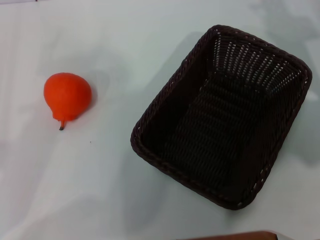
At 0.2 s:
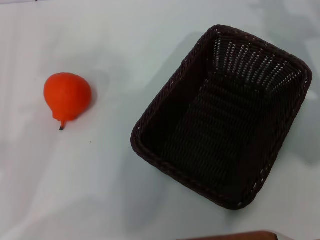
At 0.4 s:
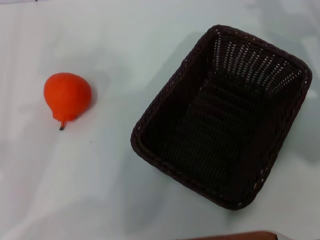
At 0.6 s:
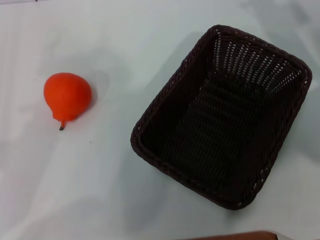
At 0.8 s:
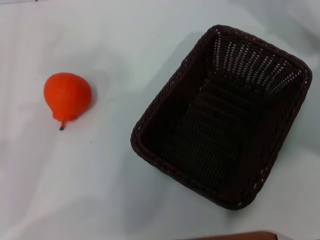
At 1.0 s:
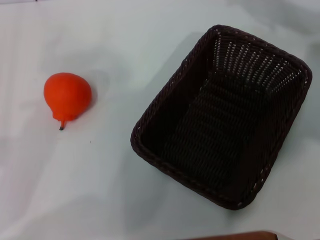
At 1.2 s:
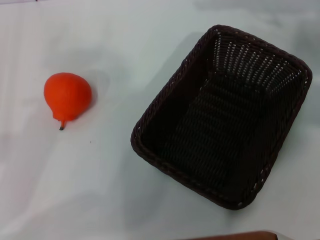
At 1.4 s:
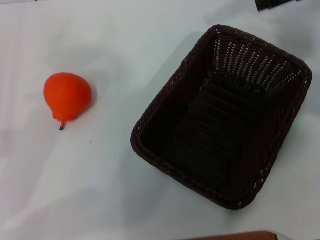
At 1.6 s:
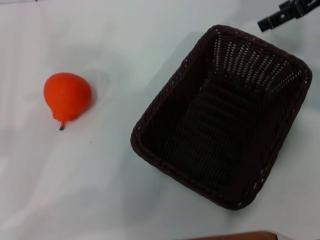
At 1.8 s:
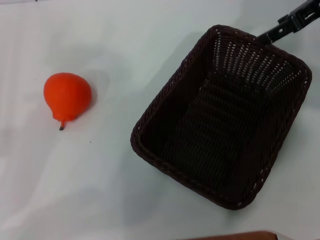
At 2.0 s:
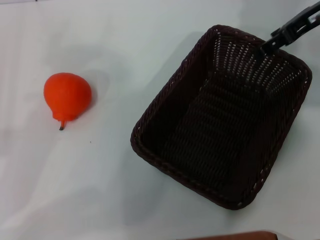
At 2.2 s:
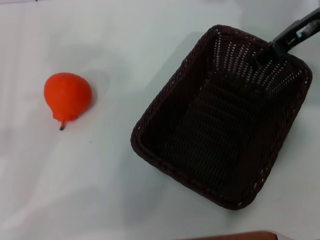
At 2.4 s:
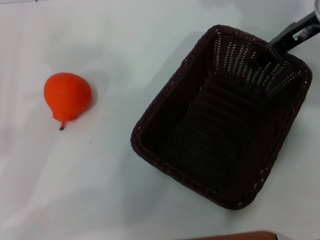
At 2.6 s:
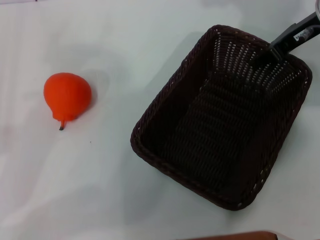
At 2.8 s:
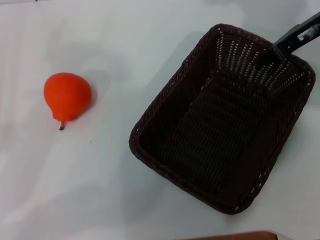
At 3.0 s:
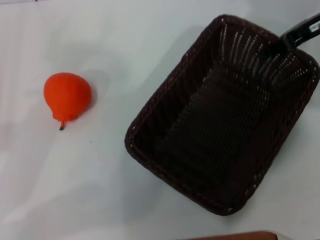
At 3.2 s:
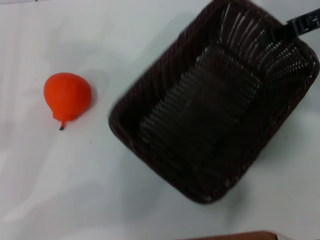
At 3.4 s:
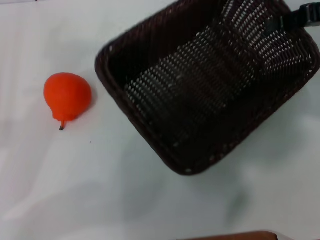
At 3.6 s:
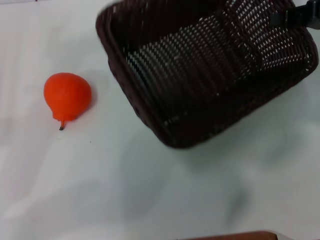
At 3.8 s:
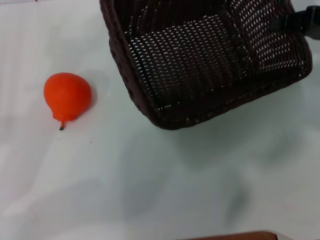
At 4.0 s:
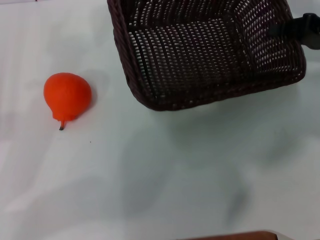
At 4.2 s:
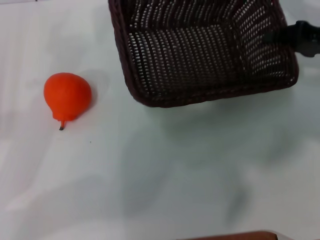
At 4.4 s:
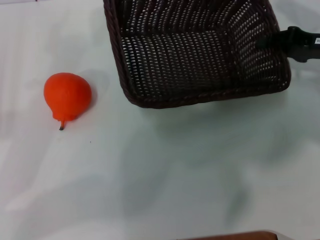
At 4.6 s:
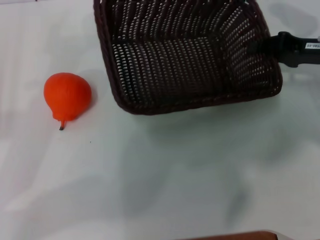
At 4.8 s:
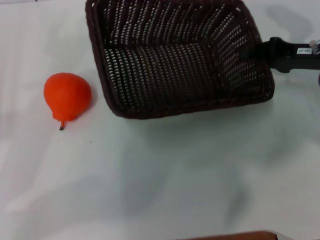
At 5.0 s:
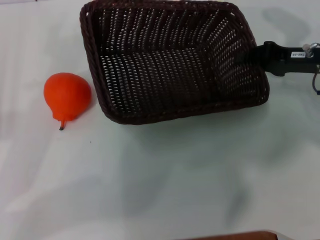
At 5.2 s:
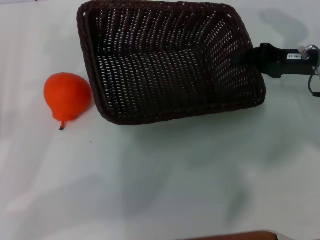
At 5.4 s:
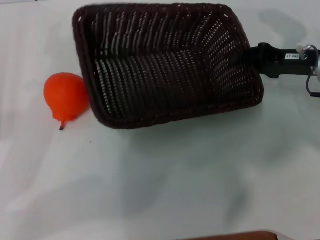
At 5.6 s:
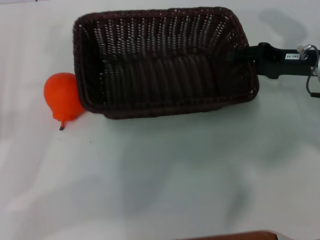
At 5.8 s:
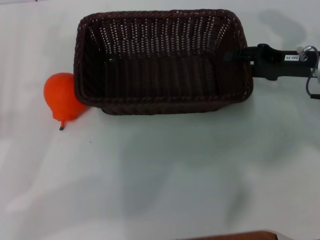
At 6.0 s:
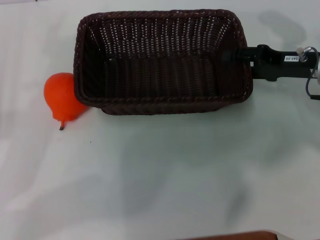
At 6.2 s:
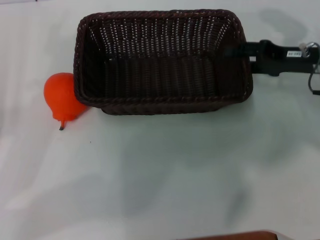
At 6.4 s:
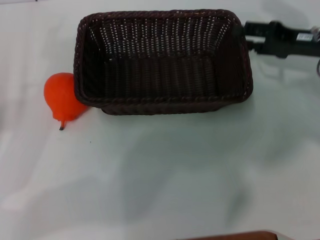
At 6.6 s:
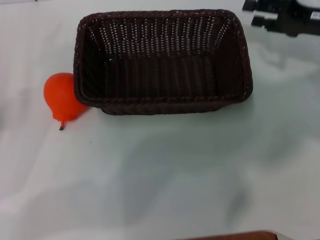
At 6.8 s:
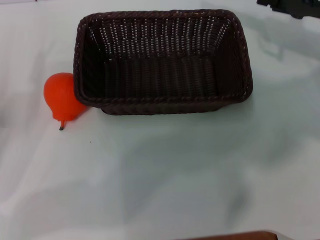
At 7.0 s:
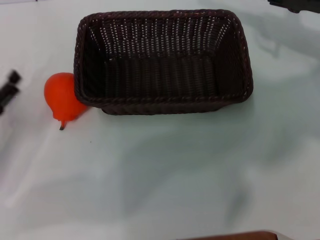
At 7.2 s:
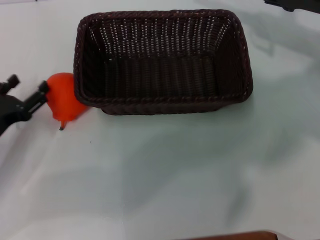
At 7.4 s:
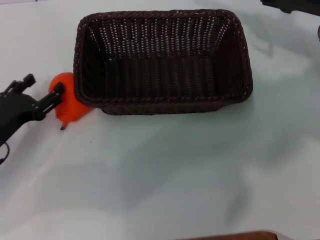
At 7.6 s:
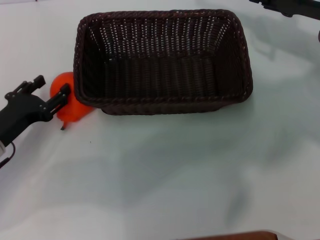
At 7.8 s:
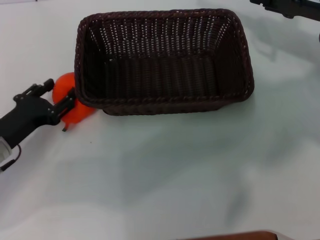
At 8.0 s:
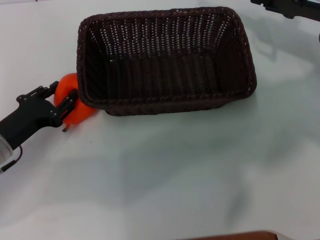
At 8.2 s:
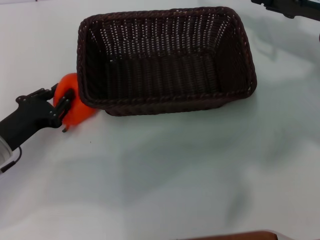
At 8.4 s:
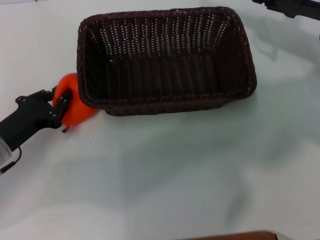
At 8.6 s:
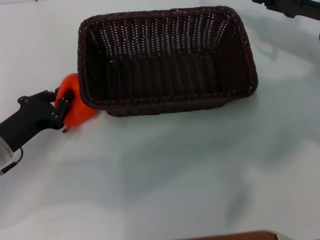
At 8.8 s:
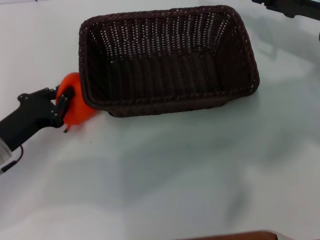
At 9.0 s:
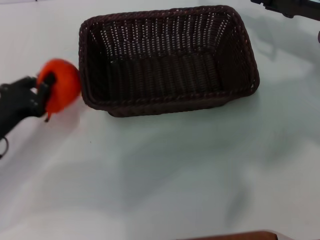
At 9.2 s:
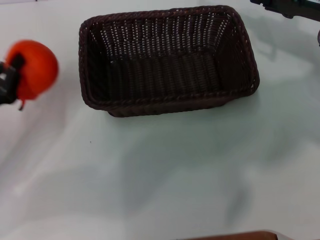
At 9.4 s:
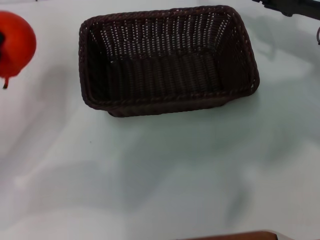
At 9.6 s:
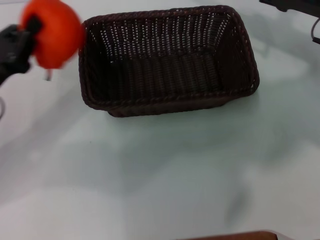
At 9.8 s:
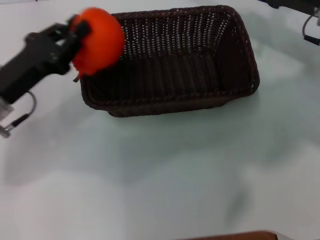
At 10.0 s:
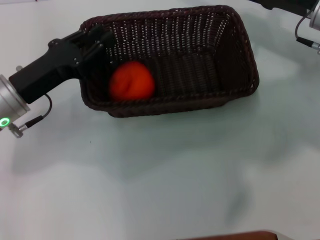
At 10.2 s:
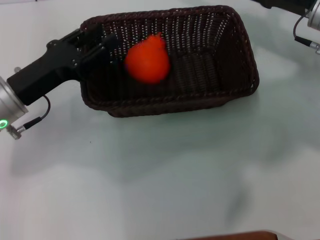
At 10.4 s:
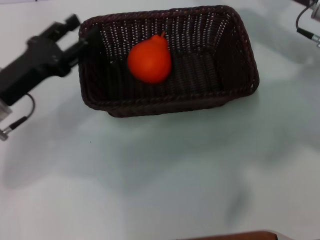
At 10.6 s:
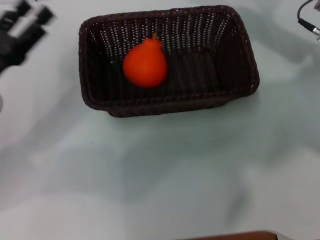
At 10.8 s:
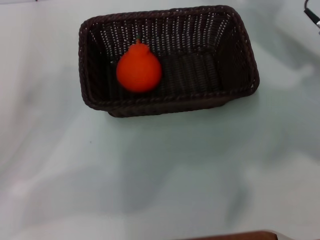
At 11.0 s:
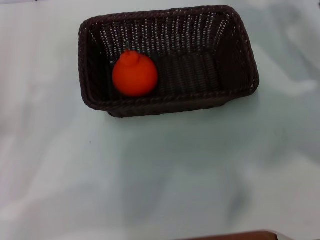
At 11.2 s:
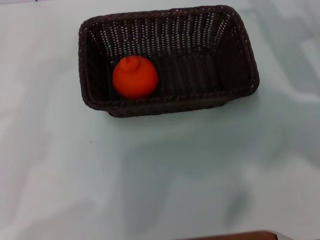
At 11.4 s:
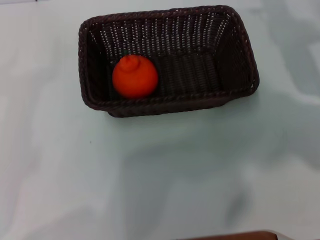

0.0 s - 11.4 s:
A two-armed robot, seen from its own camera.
Task of the whole recording: the right gripper pick up the black basket and place it horizontally in the middle of the table, the left gripper pick up the orange and place it into the black basket.
Step, 0.0 s - 3.2 s: Pick up the dark basket with the right gripper.
Step, 3.4 s - 6.4 s: Place the dark basket in the center of view with the right gripper.
Step, 6.6 s - 9.0 s: Pick up the orange with the left gripper.
Step, 9.2 s - 10.4 s: Place the orange into the dark basket with the left gripper.
0.0 s - 1.4 s: The right gripper heads upward, covering approximately 10 cm, and opens.
1.4 s - 2.8 s: The right gripper travels downward by roughly 5 cm, and closes.
2.8 s - 4.2 s: The right gripper travels to the right, downward and backward by some 10 cm.
4.2 s - 5.6 s: The right gripper shifts by some 5 cm.
5.6 s - 7.2 s: The left gripper travels downward by about 5 cm. Meanwhile the right gripper shifts by about 5 cm, and opens.
7.2 s - 8.6 s: The left gripper closes its fingers.
8.6 s - 10.0 s: The left gripper shifts some 5 cm upward.
10.0 s - 11.4 s: The left gripper is displaced backward and to the left by approximately 20 cm, and opens up.

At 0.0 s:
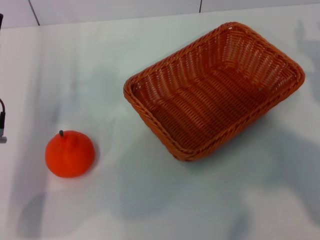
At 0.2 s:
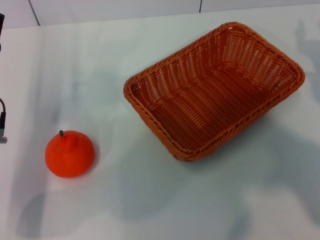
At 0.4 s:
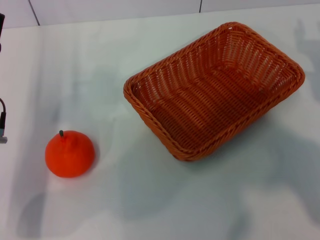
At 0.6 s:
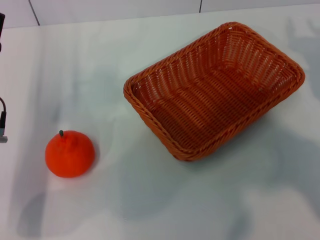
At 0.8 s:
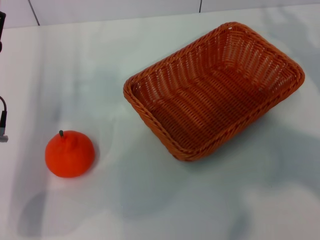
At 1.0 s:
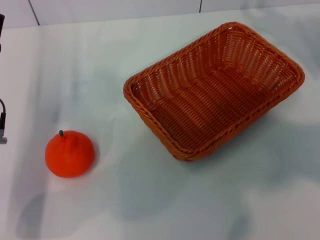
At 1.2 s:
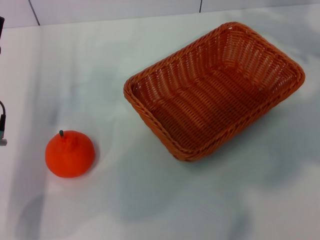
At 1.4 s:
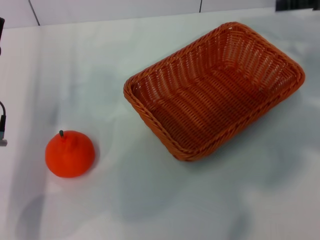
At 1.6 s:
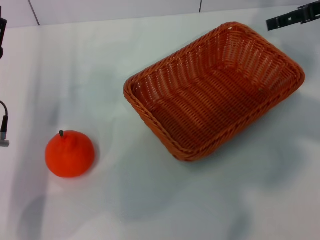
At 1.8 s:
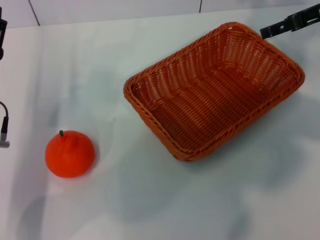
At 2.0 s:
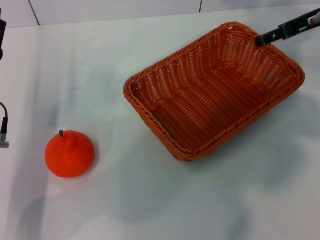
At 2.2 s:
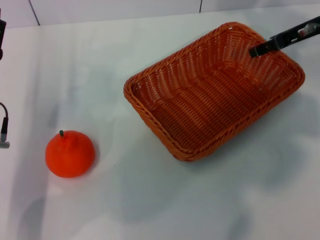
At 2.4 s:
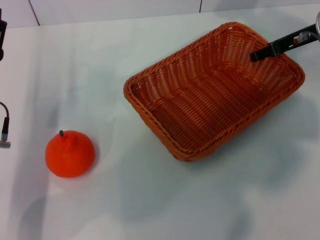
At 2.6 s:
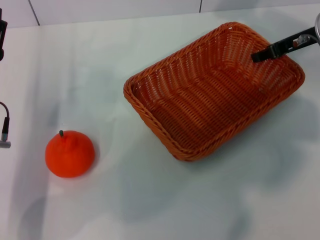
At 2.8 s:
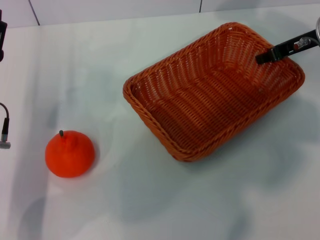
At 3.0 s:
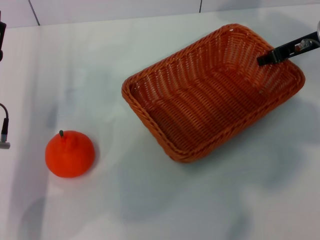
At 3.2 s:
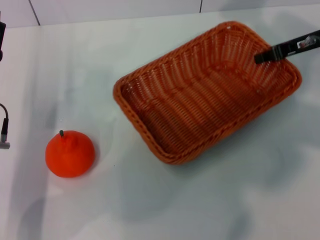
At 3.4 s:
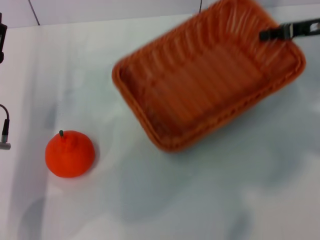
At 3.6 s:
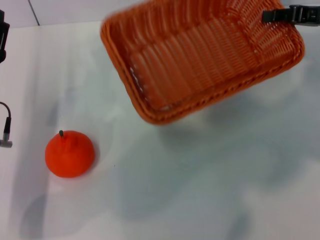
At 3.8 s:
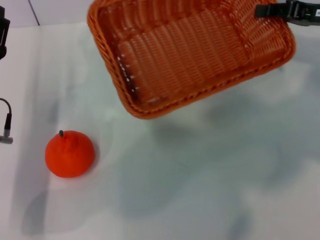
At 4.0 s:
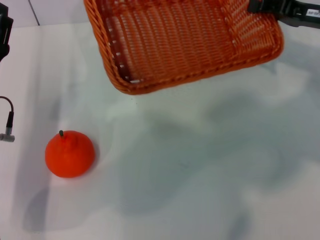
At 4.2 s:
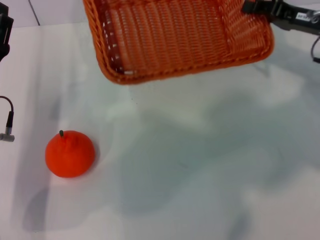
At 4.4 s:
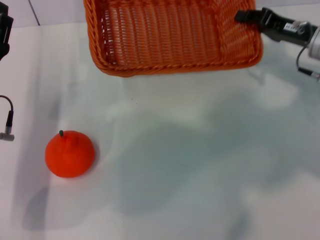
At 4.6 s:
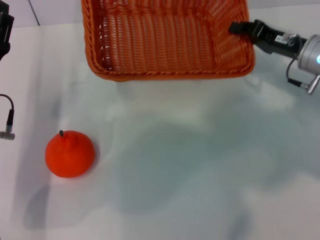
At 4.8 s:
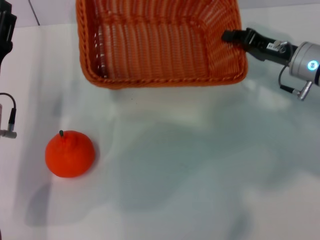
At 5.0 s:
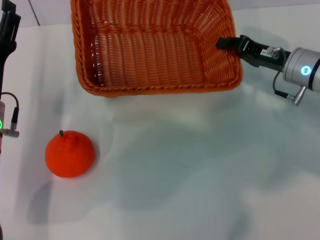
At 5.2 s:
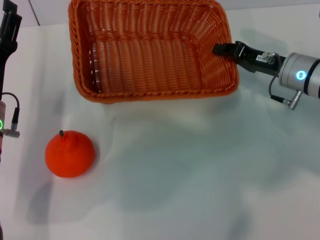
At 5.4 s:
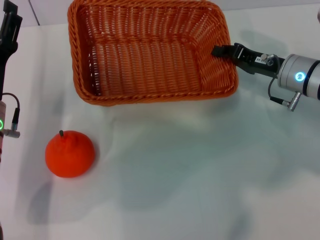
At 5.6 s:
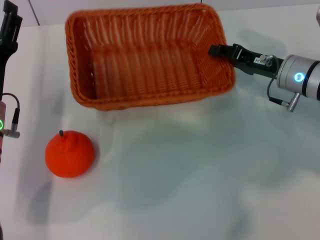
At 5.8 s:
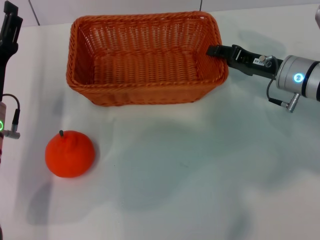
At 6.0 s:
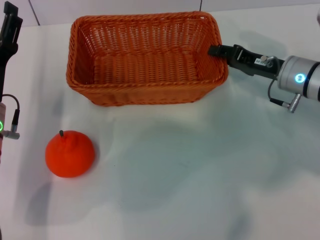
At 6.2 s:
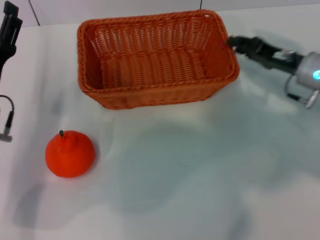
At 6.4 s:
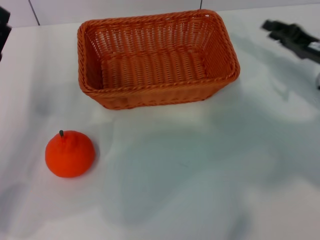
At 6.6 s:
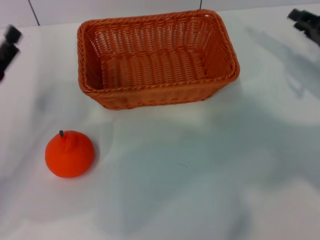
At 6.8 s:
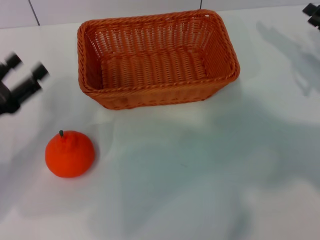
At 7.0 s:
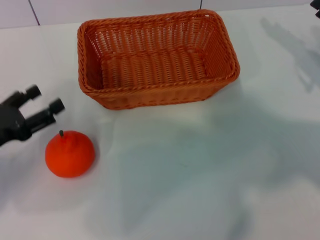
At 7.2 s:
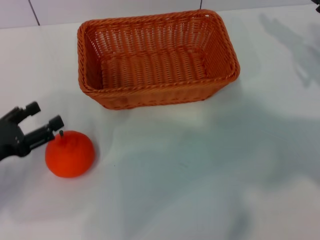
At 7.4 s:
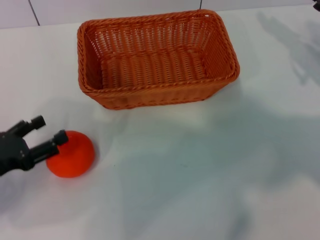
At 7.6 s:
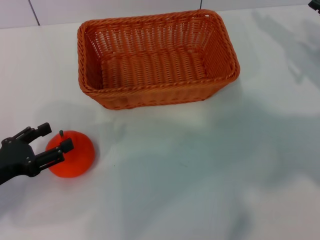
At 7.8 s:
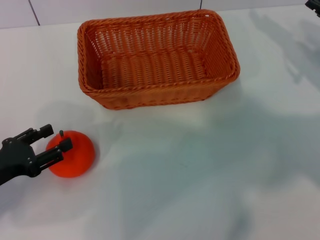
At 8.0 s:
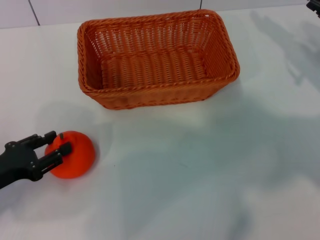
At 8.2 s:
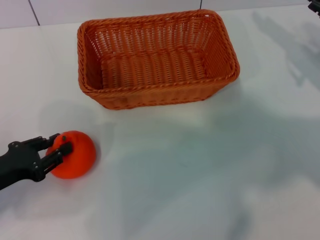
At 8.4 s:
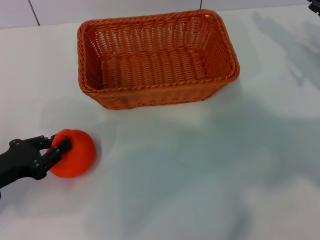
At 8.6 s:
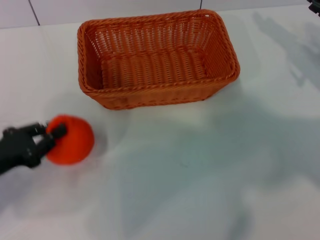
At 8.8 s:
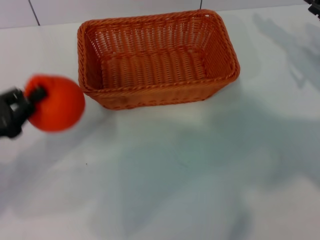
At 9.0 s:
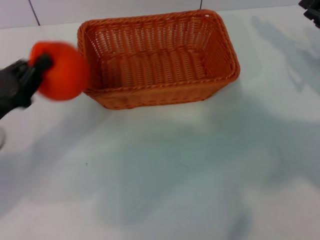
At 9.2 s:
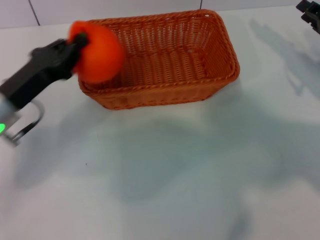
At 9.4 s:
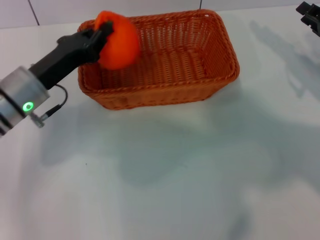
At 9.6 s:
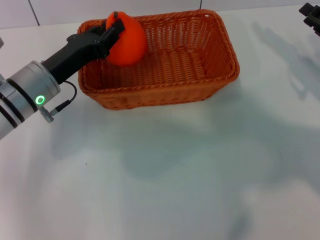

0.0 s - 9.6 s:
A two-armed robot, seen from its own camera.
Task of the whole recording: the right gripper pick up the yellow basket and place it horizontally in the middle of the table, the left gripper pick up the orange and place it into the yellow basket.
Step, 0.0 s - 3.4 s: Pick up the light basket with the right gripper.
Step, 3.6 s - 6.2 s: Place the light basket in the center of view with the right gripper.
Step, 6.4 s - 8.6 s: Pick up the orange with the left gripper.
0.0 s - 1.6 s: The right gripper goes about 20 cm upward and forward, and opens its fingers.
1.6 s - 3.2 s: The right gripper moves downward, approximately 5 cm, and closes its fingers.
3.2 s - 4.8 s: The right gripper travels downward by approximately 10 cm.
4.8 s - 6.4 s: The right gripper goes roughly 5 cm to the right.
6.4 s - 8.0 s: The left gripper heads backward, covering some 5 cm.
8.0 s - 9.6 s: The left gripper moves forward and to the right, about 15 cm, and closes.
